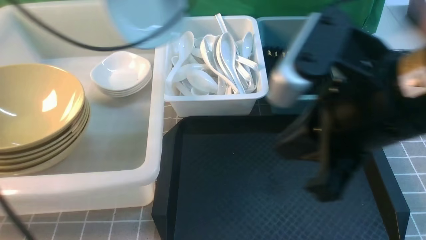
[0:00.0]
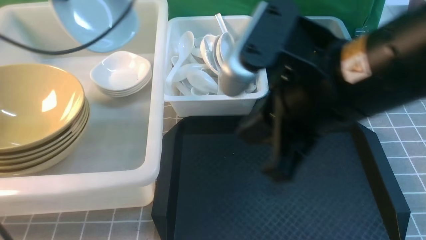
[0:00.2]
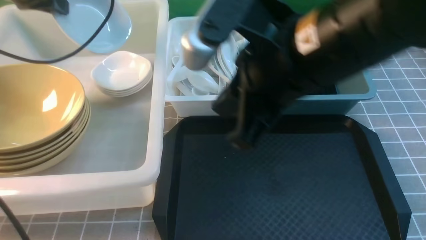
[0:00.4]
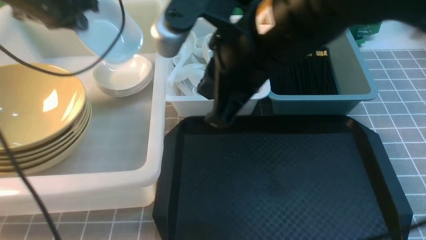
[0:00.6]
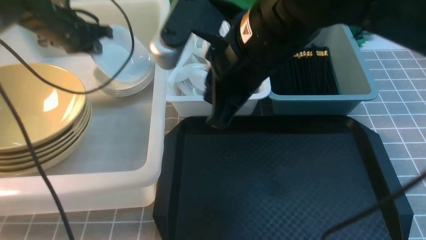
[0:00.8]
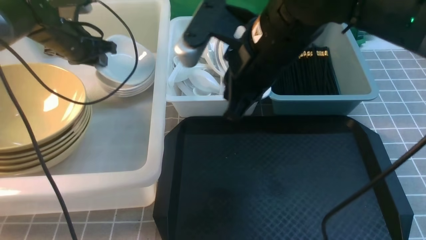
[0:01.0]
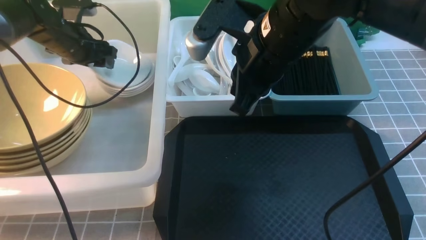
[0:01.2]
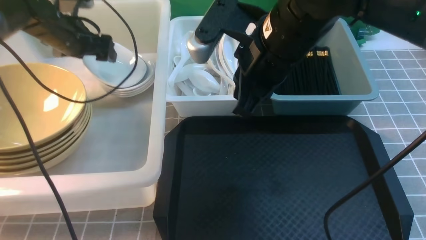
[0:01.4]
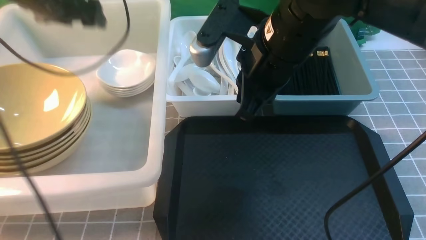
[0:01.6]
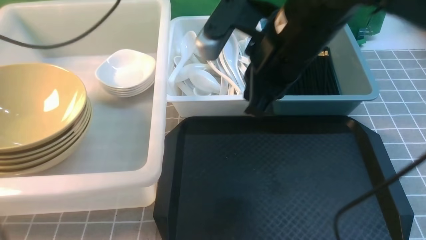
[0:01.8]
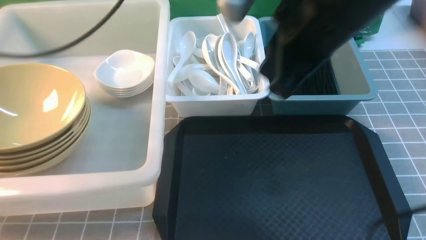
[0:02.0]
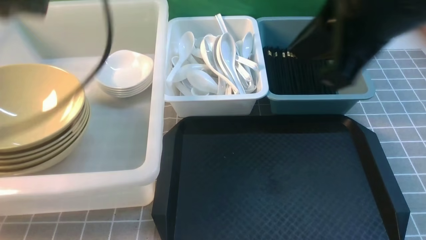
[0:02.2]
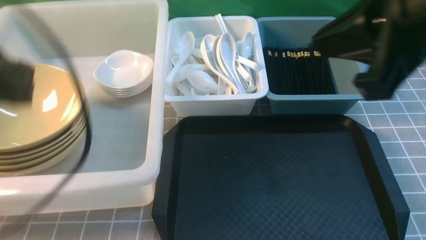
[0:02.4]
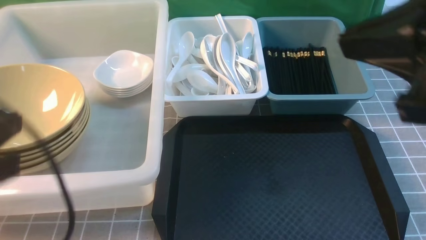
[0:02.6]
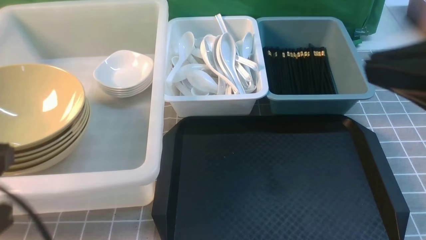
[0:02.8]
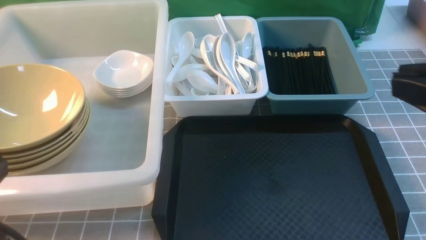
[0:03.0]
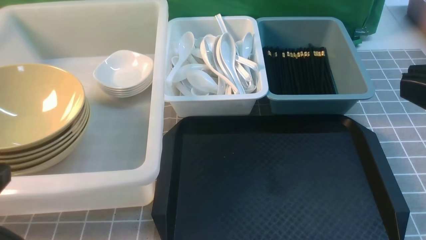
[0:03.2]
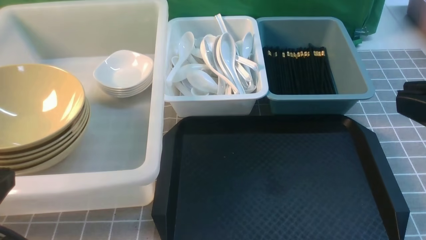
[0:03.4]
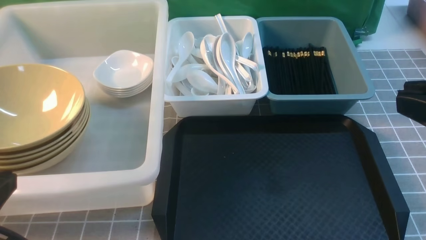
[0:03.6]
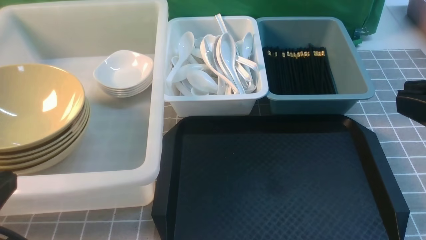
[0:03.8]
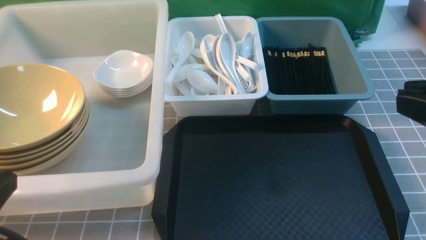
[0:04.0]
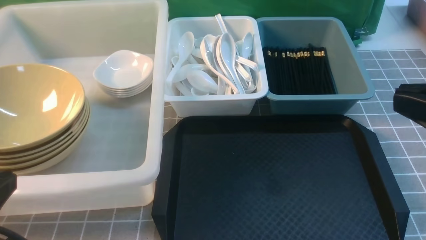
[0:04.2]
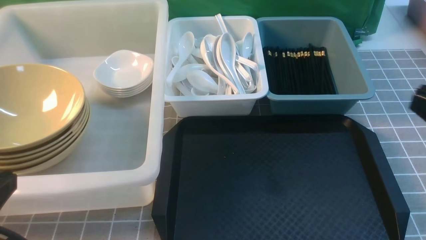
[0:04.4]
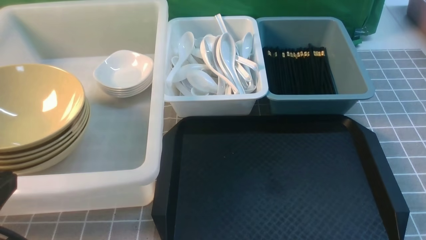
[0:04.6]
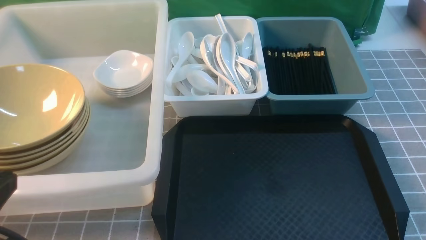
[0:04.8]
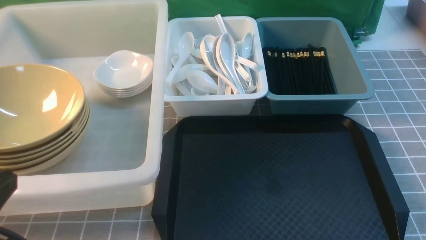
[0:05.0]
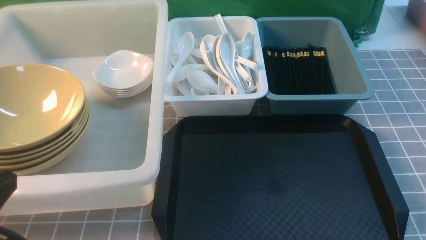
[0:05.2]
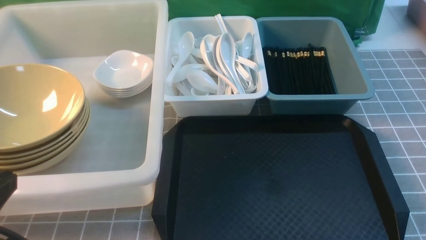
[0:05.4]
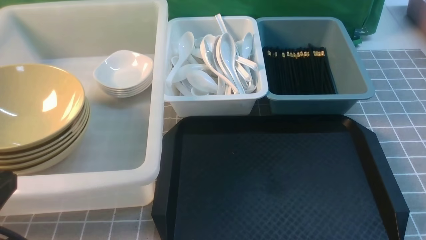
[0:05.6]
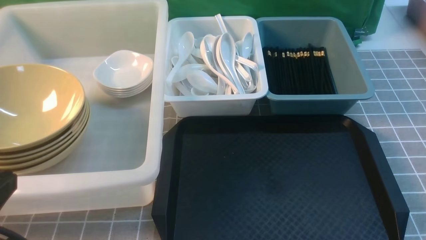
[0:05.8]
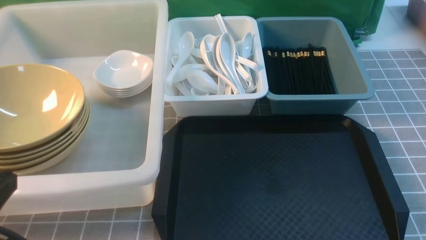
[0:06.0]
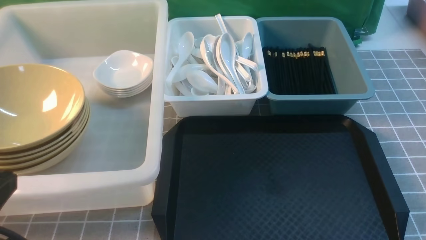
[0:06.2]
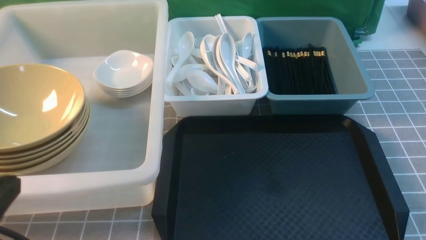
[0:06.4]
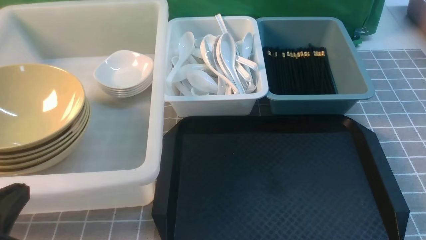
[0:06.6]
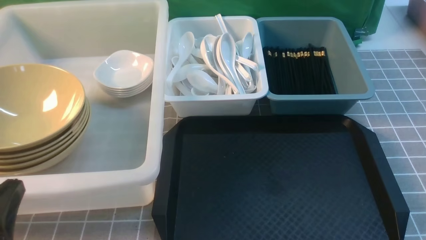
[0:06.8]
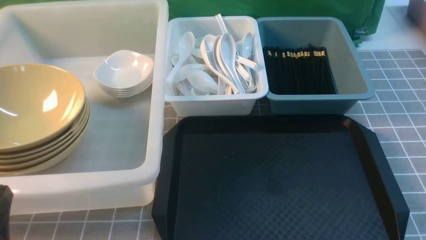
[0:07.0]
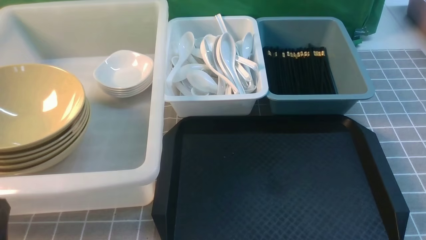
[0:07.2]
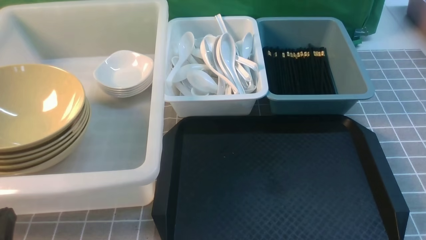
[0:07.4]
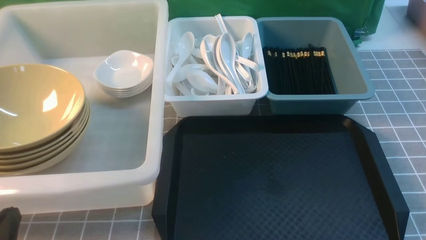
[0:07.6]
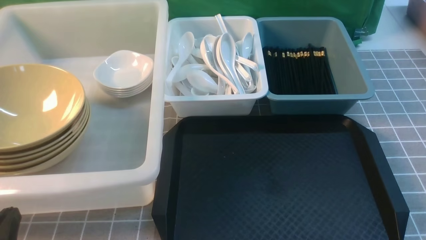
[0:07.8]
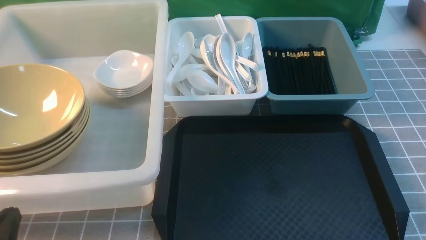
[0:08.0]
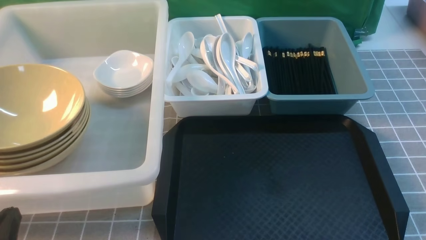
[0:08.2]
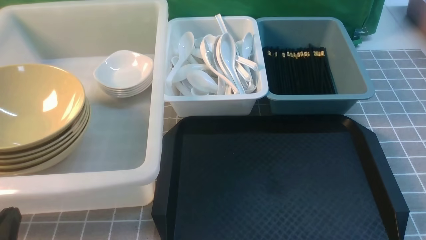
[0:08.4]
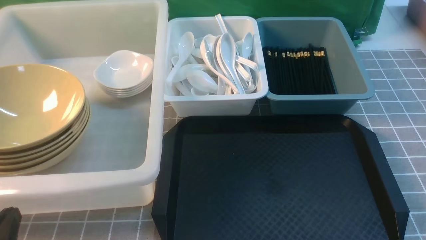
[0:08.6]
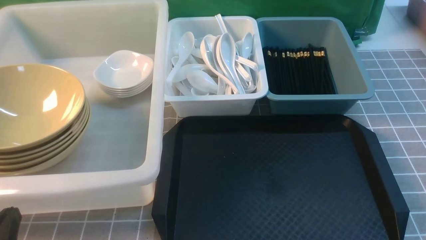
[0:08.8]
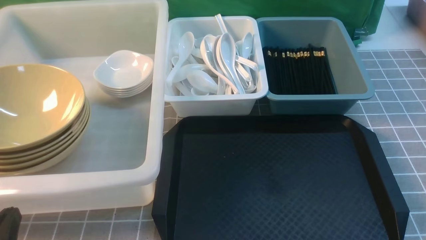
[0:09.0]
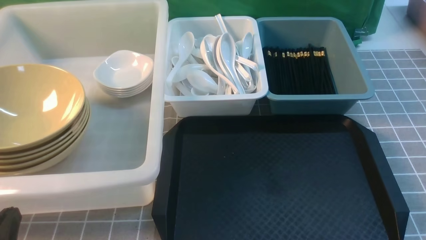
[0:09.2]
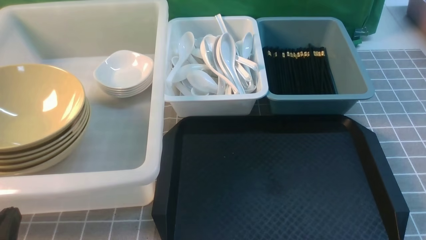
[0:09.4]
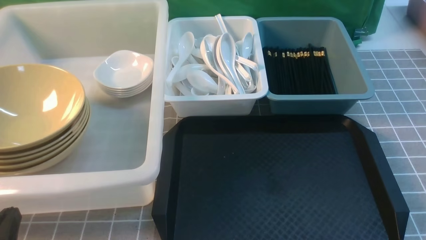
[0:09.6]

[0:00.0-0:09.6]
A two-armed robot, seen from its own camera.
Task of the whole recording: on grey table put chopsticks spoon bowls plates into blue grey white boxes.
Step, 0:00.0 to 0:01.6: use the left arm to put the chopsticks into the small storage box on the right.
0:00.0 to 0:01.6: The left gripper goes approximately 15 cm to the left, downward and forward, and opens its fingers. Meanwhile the right gripper travels forward and to the left by approximately 15 cm.
0:01.6 to 0:03.2: The right gripper moves backward and to the right, some 25 cm. The left gripper is displaced backward by some 40 cm, and closes its fingers.
0:03.2 to 0:04.8: The right gripper heads downward and to the right, covering some 20 cm.
0:06.4 to 0:08.0: The left gripper shifts roughly 10 cm downward.
0:08.0 to 0:09.6: Both grippers stay put.
